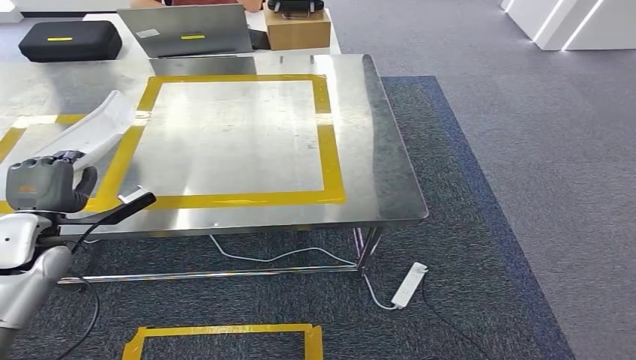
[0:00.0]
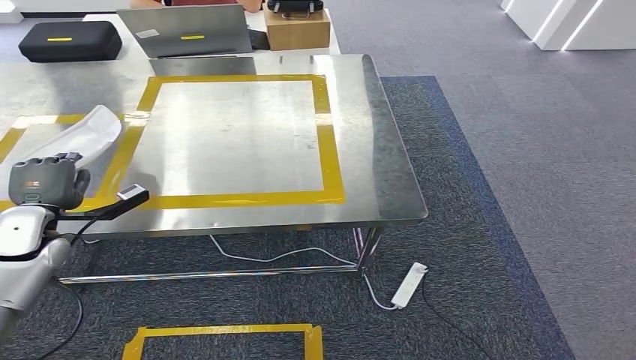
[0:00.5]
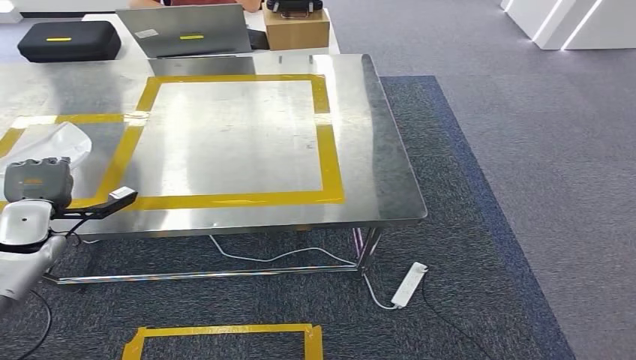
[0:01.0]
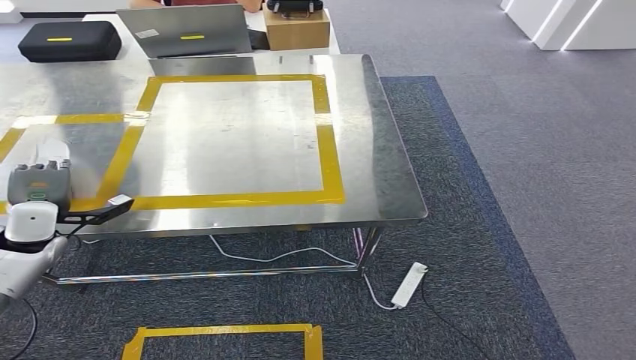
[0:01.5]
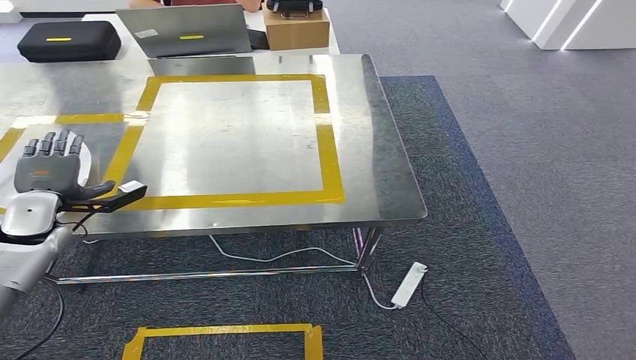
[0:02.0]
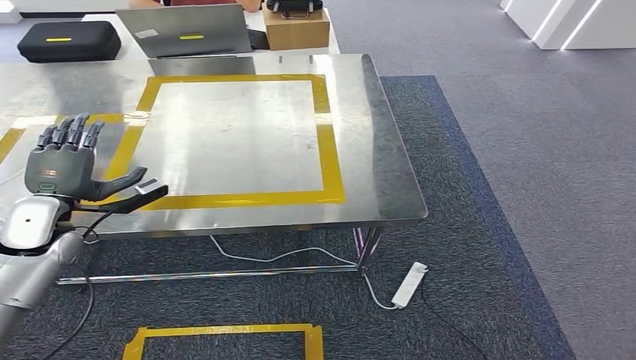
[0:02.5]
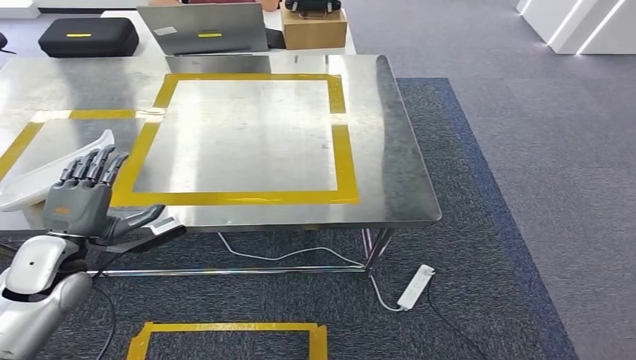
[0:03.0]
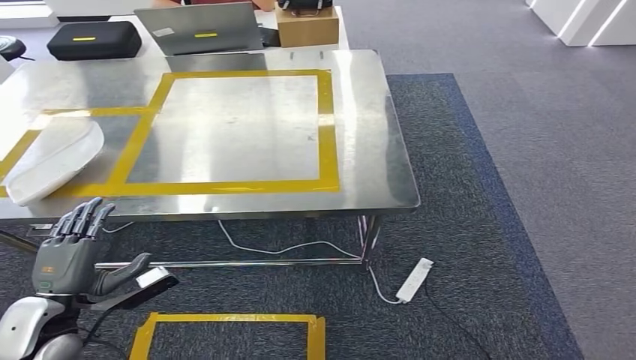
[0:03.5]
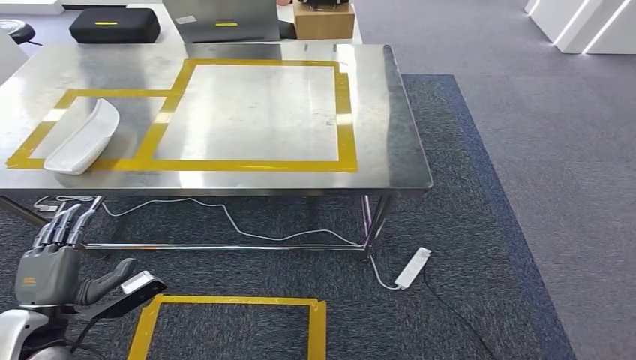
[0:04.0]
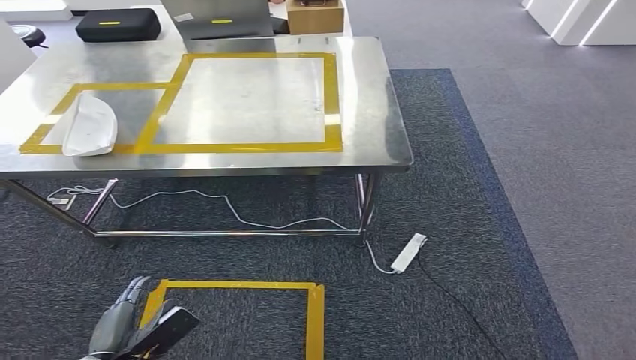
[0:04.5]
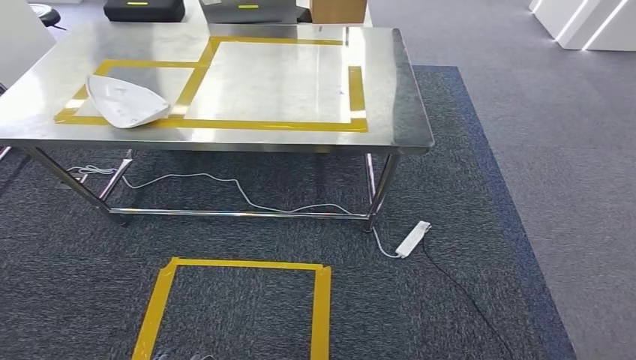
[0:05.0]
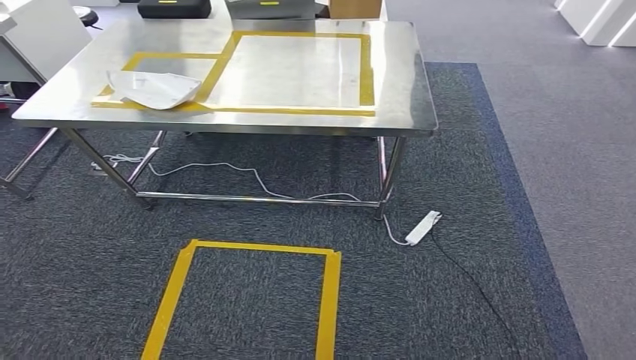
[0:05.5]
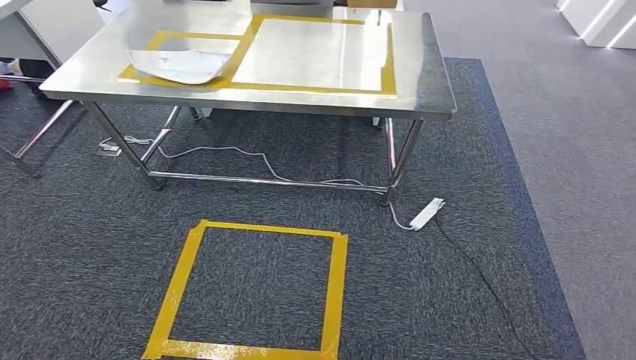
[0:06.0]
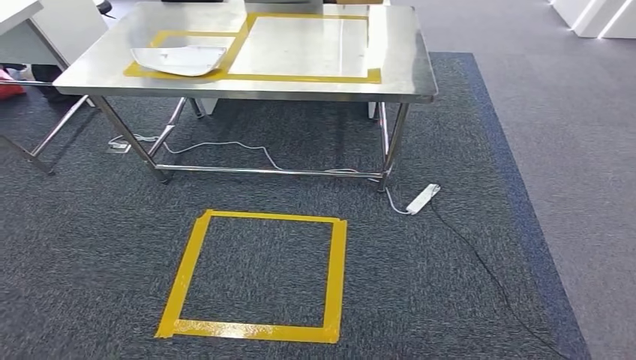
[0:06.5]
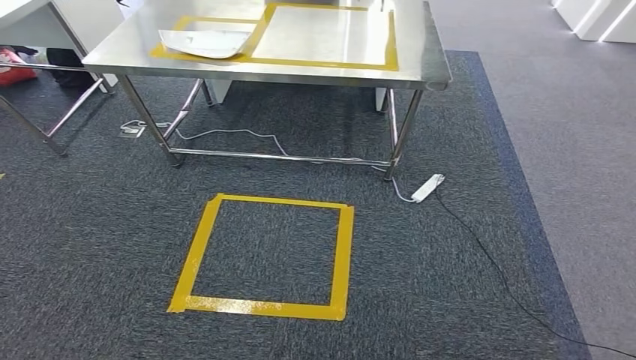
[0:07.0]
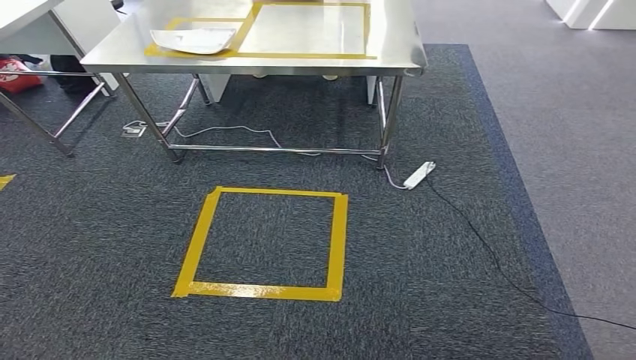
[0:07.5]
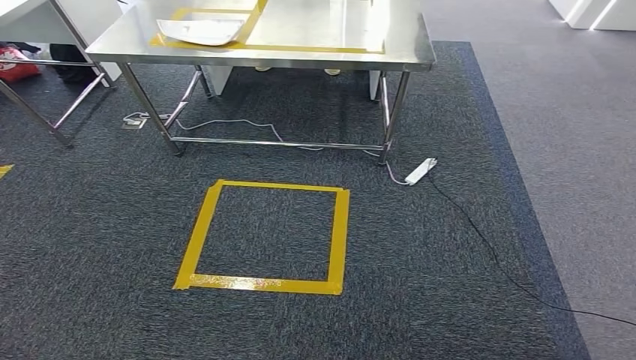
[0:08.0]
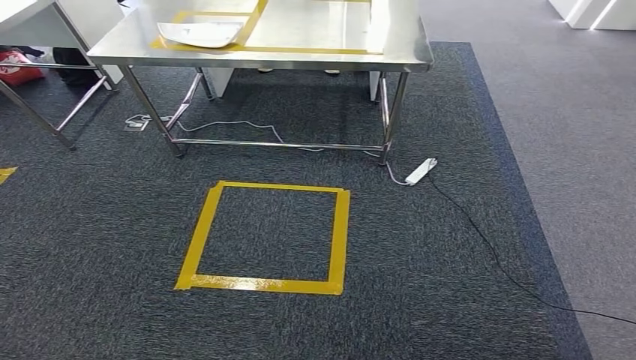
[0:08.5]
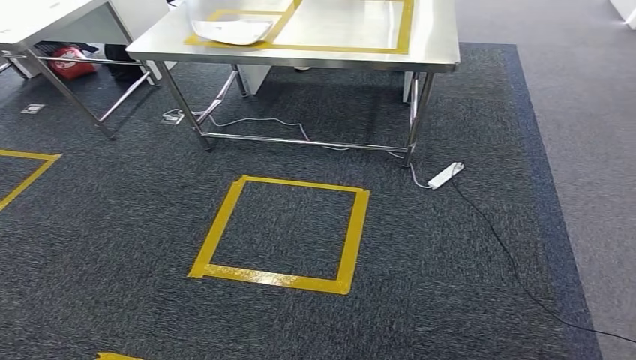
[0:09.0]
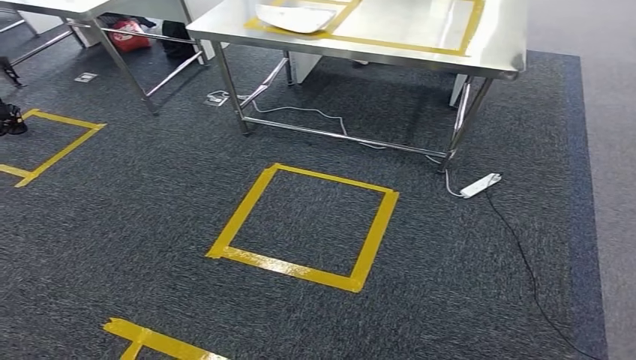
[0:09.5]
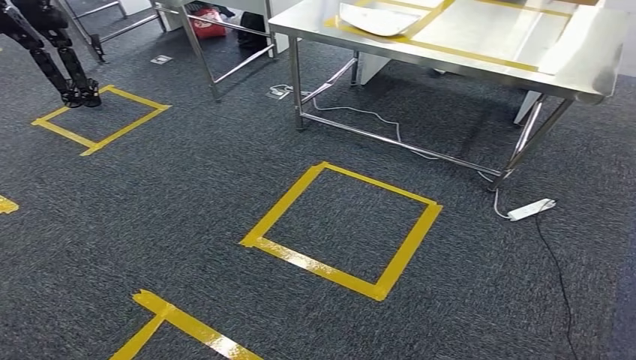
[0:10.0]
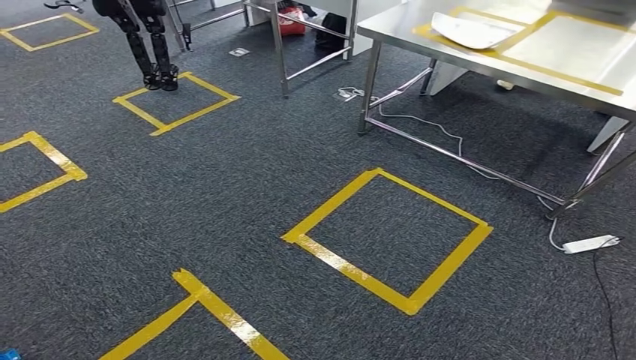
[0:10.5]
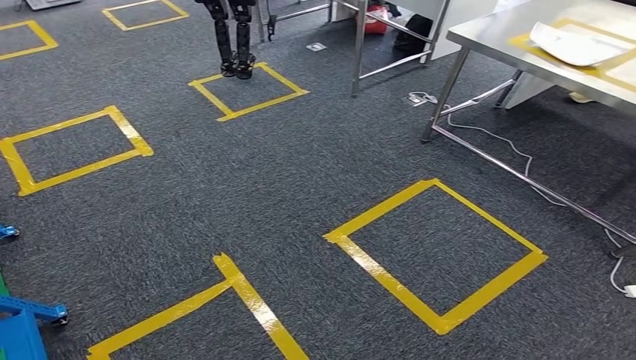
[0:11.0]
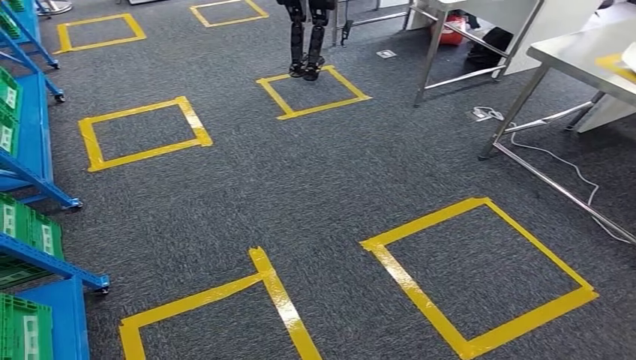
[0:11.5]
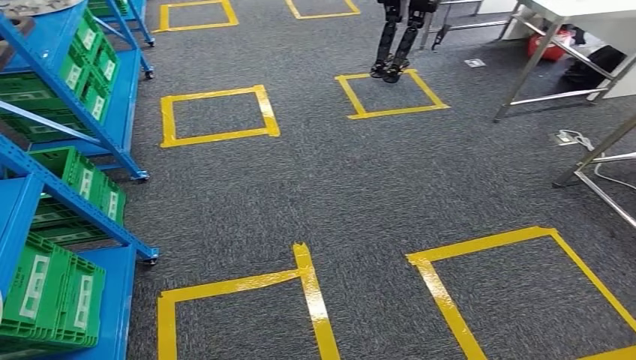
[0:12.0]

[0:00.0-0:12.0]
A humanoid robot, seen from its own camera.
Step, 0:00.0 to 0:03.0: Insert the small parts into the corresponding holes on the workbench.
0:00.0 to 0:02.0: The left hand moves forward, some 5 cm.

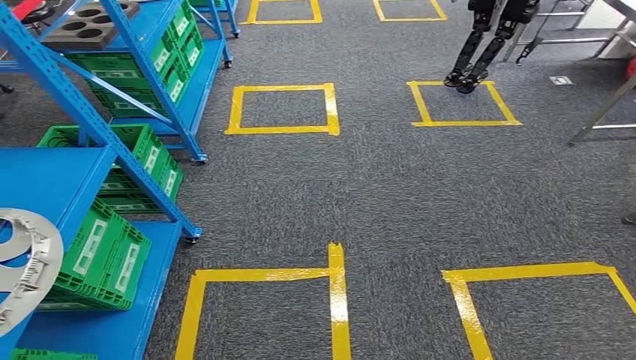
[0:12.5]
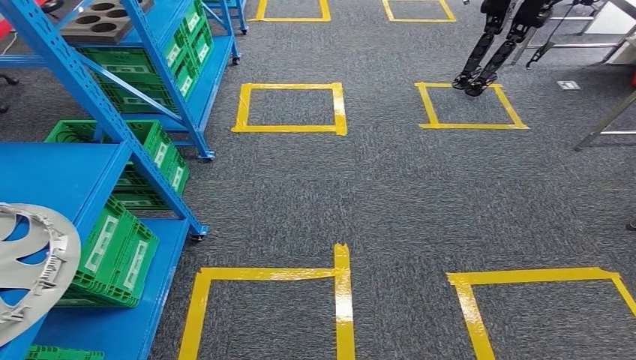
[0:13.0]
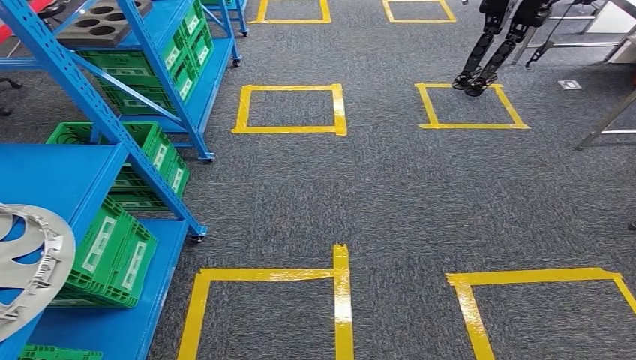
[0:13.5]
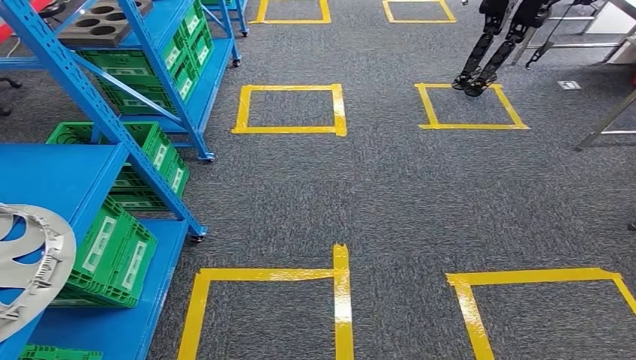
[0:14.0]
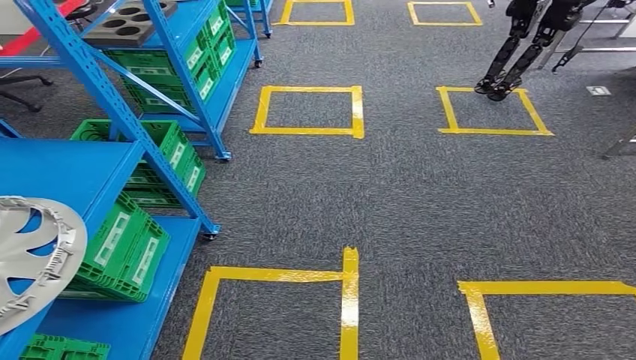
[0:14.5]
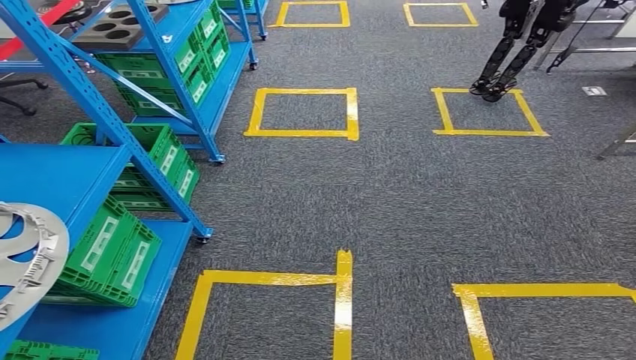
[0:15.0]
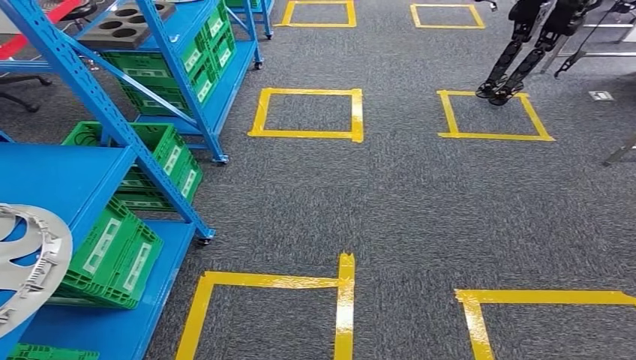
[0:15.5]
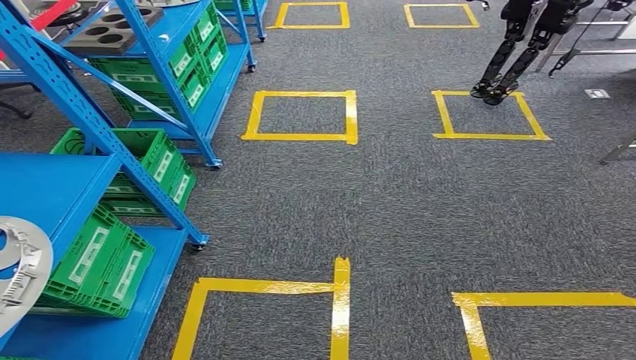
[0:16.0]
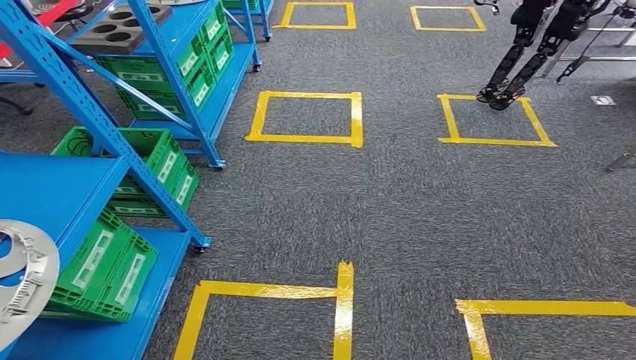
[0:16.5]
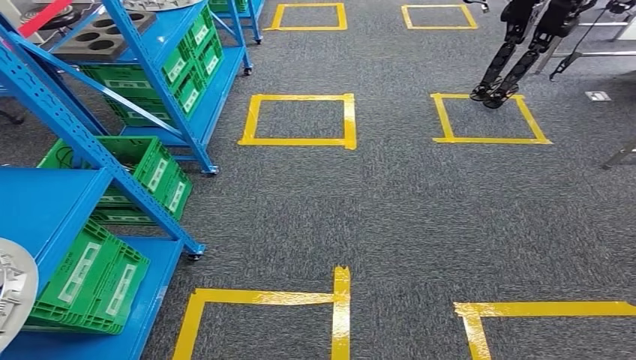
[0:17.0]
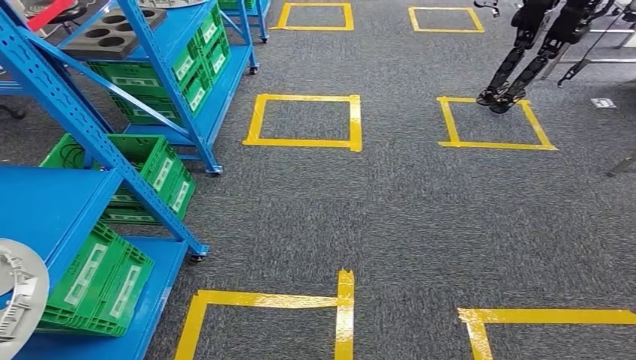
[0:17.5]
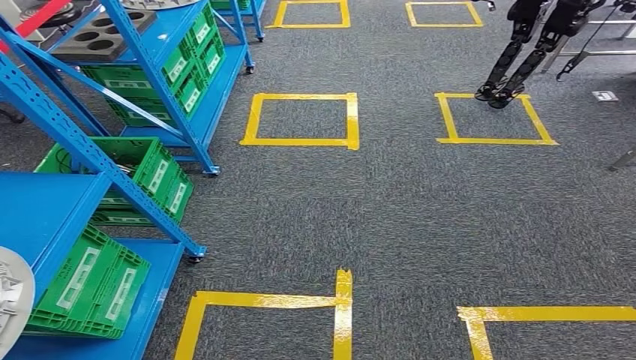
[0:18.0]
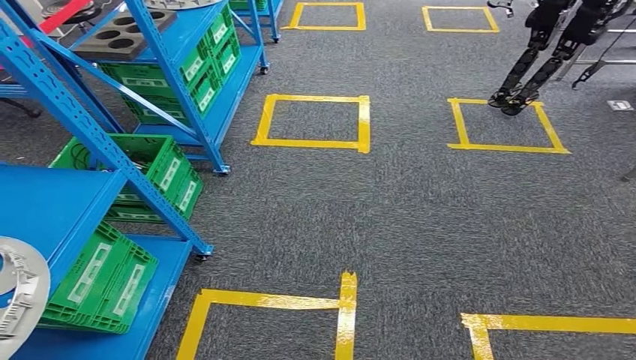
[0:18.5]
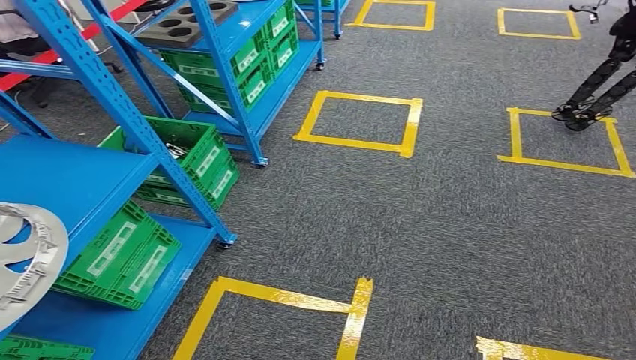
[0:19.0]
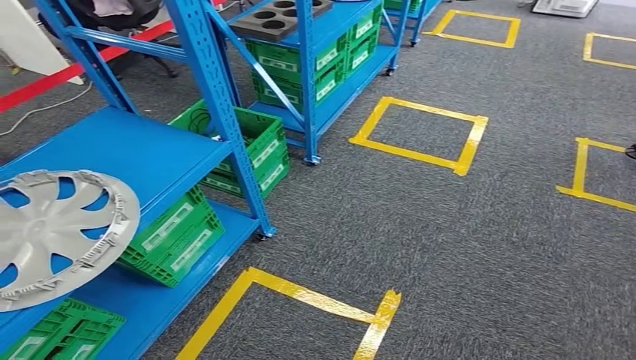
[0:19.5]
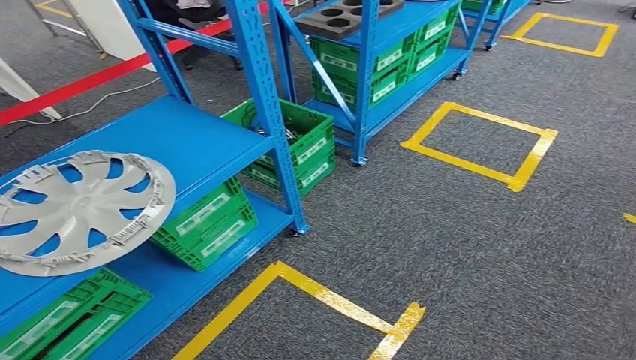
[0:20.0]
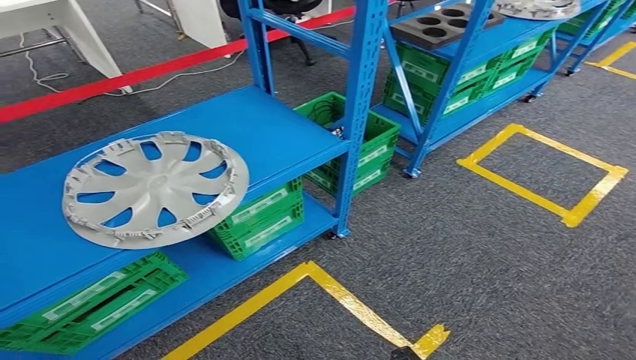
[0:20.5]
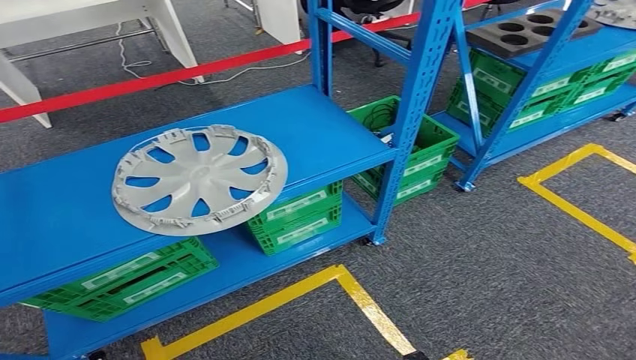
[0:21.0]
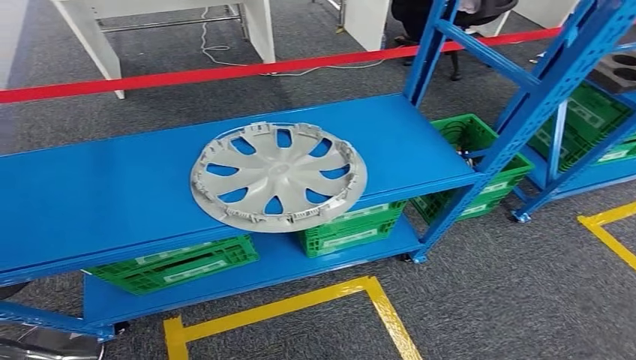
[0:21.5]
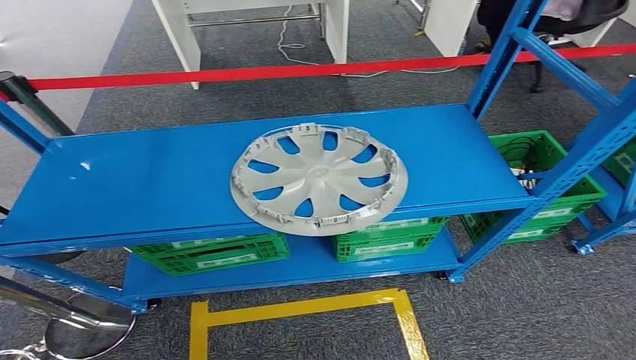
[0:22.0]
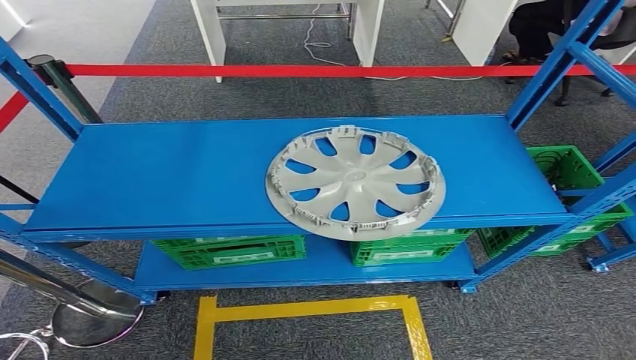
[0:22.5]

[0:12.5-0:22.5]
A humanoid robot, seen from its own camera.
Step, 0:12.5 to 0:22.5: Move to the initial position at the workbench.
